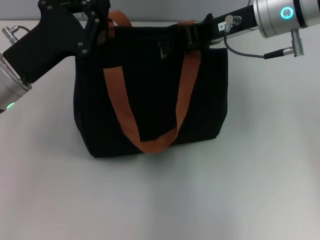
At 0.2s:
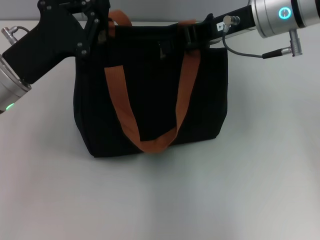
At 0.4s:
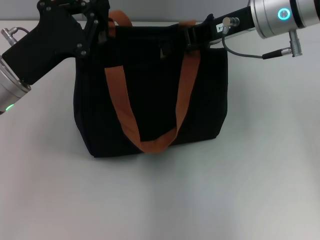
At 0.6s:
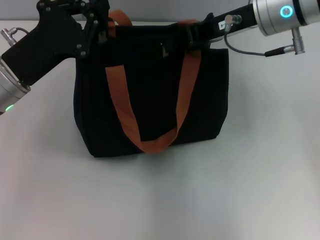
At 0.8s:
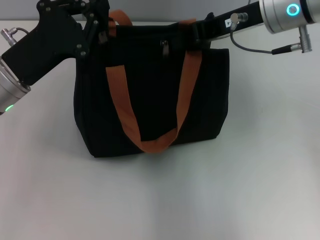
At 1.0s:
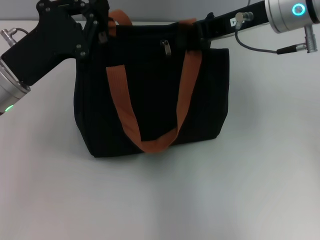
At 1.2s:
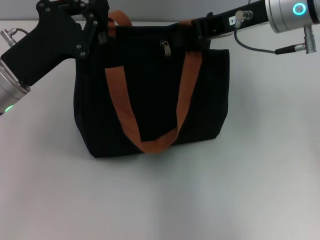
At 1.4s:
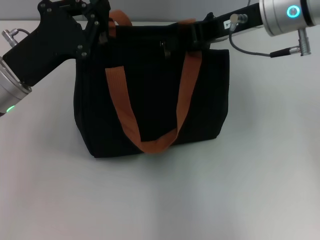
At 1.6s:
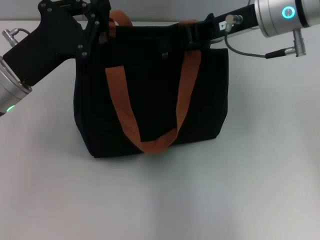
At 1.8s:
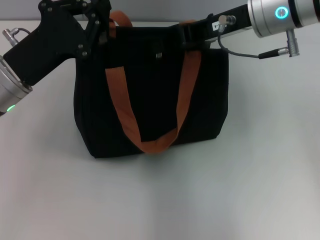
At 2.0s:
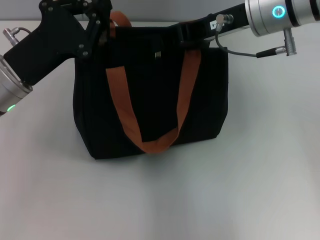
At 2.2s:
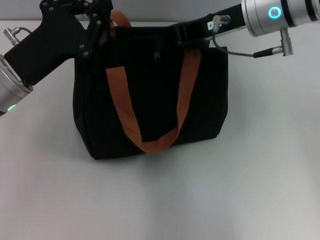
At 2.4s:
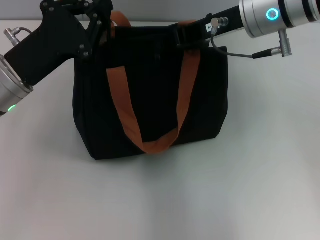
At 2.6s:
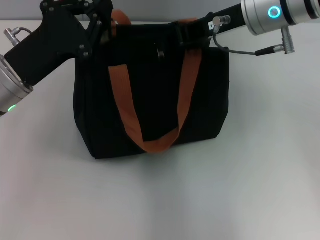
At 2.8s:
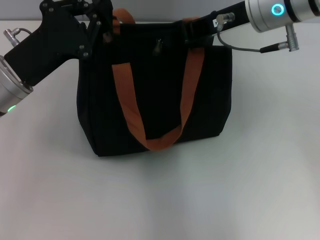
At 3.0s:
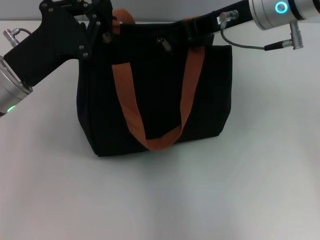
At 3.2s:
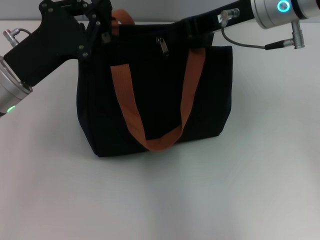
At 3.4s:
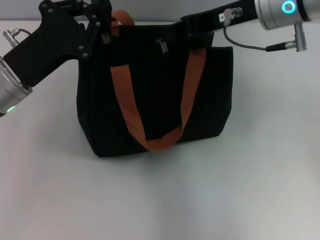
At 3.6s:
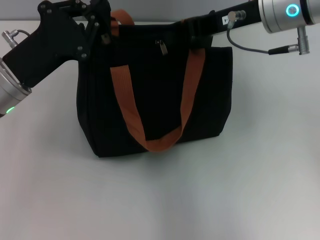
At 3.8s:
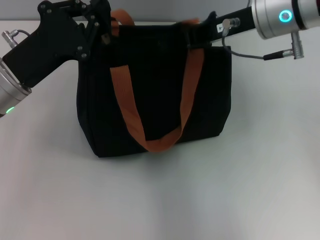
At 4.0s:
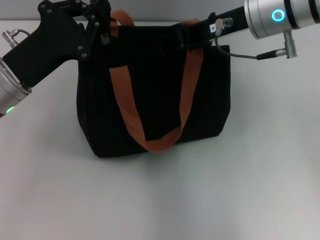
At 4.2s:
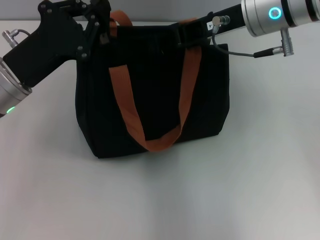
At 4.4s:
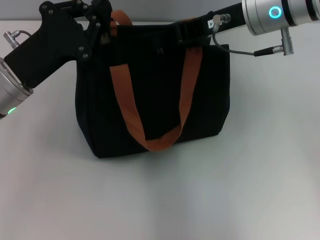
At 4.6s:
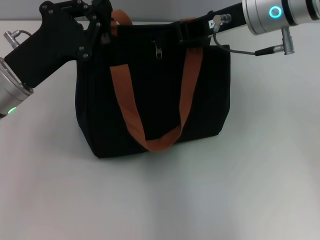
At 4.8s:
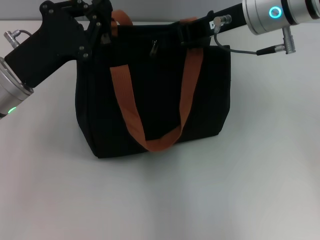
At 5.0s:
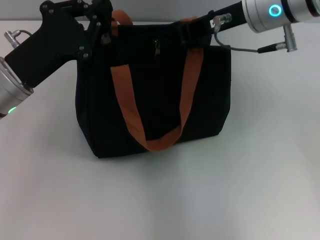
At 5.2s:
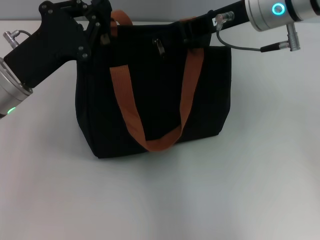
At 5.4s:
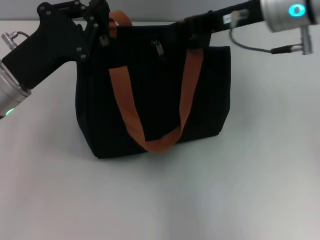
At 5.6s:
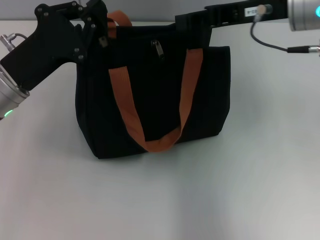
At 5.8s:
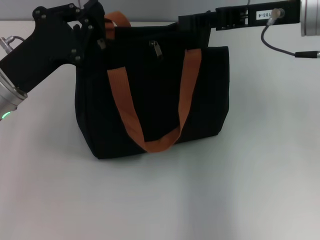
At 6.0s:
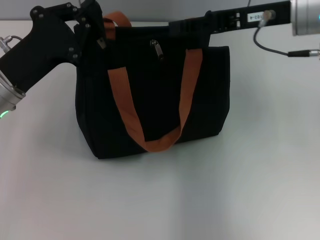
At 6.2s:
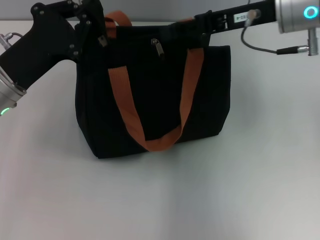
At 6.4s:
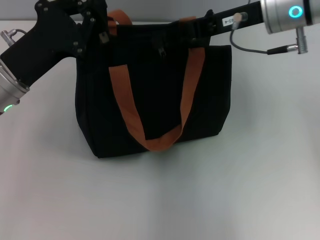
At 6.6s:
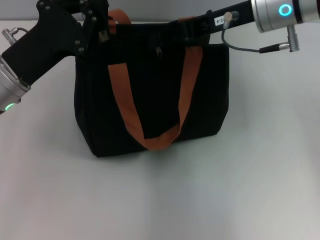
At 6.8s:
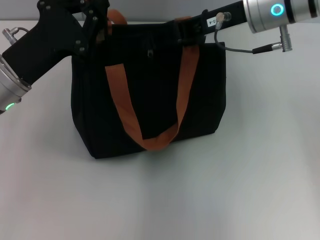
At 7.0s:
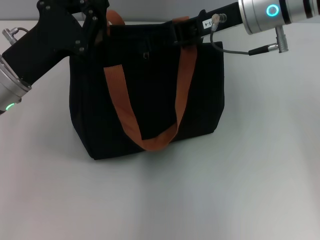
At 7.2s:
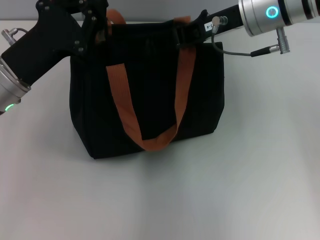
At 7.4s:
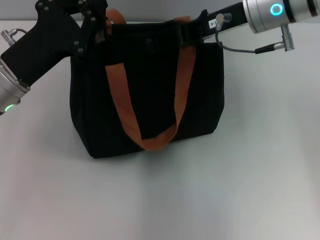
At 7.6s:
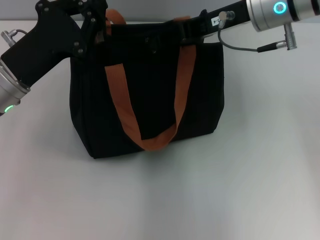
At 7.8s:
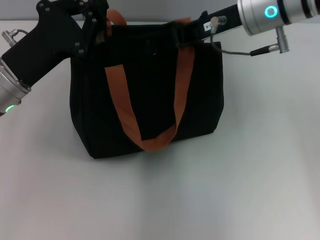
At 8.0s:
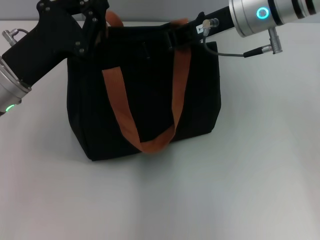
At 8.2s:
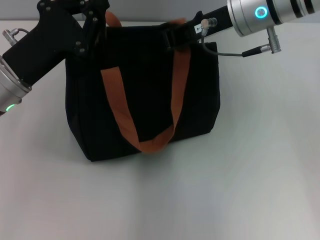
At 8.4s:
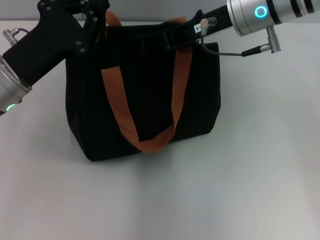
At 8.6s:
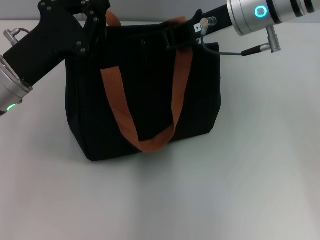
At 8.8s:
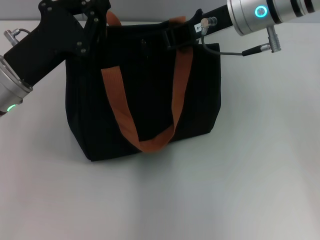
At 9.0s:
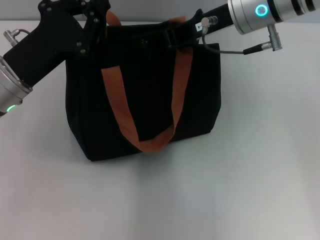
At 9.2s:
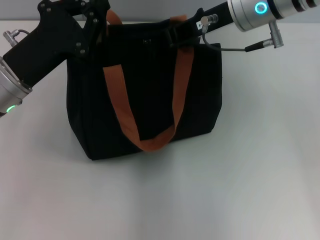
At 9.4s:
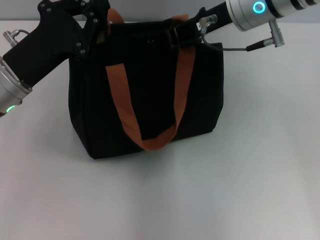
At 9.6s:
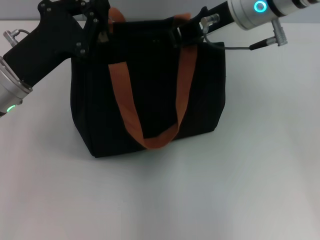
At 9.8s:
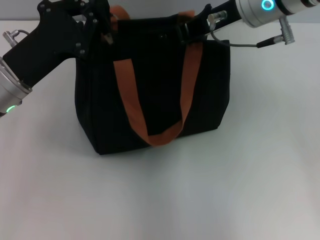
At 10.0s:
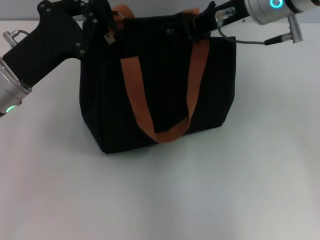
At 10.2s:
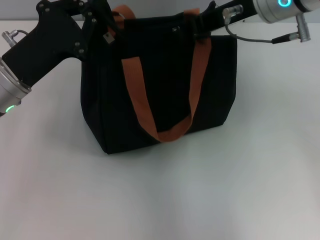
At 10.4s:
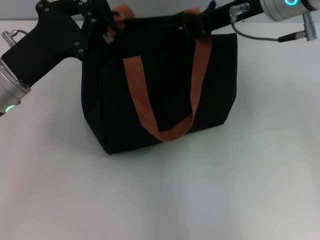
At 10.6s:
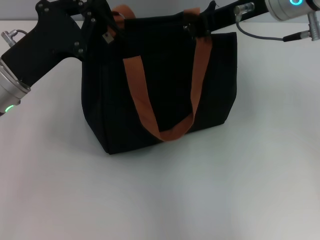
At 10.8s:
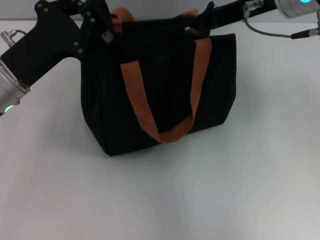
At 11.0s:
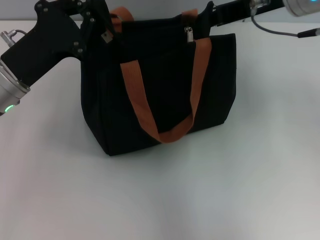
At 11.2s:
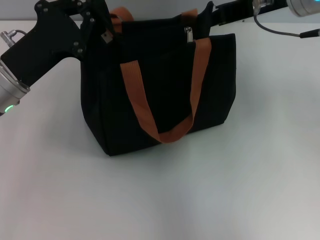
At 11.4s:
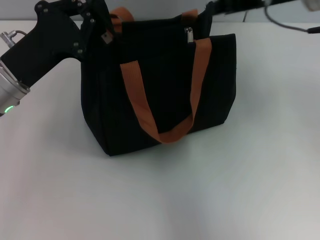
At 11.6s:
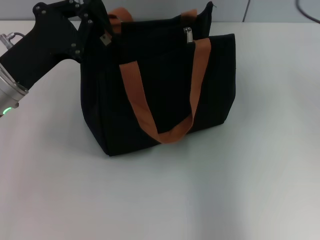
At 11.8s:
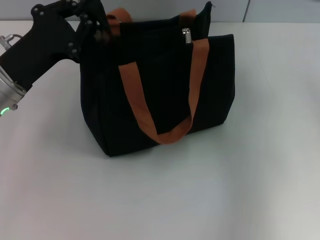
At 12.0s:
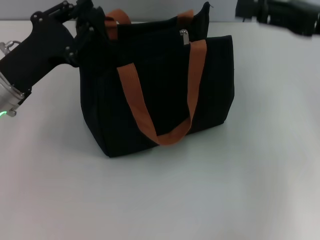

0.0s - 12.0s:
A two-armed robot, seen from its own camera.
Step, 0.0s - 11.4s: Pull up the zipper with your right hand.
0.0s - 4.4s: The grippers stay close to where they were, moving slightly.
4.4s - 6.0s: The right gripper moves some 5 cm.
6.0s - 7.6s: The grippers make only small movements.
7.6s - 9.0s: The right gripper closes its fingers.
9.0s - 10.4s: The grippers make only small movements.
10.4s - 12.0s: The right gripper shifts about 15 cm to the right, and opens its fingers.

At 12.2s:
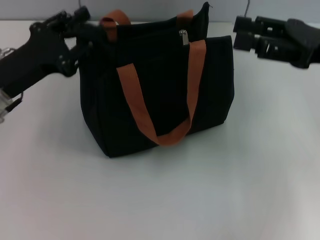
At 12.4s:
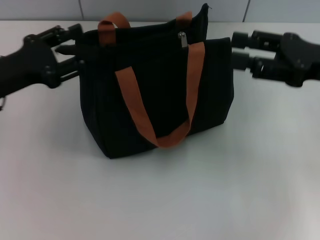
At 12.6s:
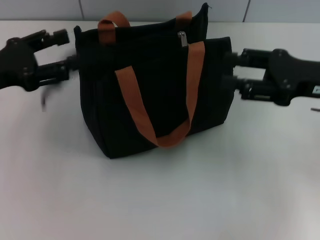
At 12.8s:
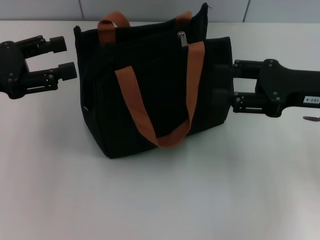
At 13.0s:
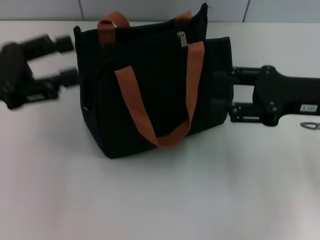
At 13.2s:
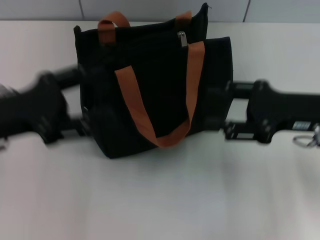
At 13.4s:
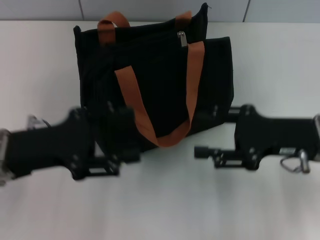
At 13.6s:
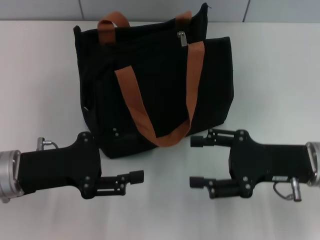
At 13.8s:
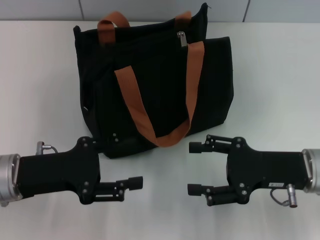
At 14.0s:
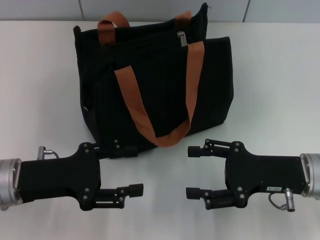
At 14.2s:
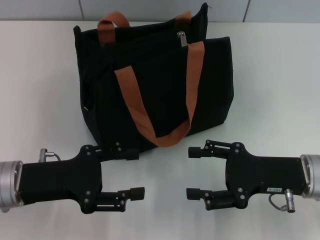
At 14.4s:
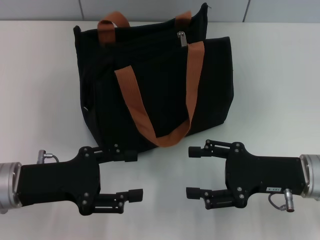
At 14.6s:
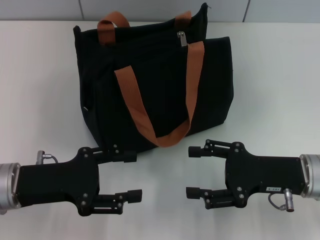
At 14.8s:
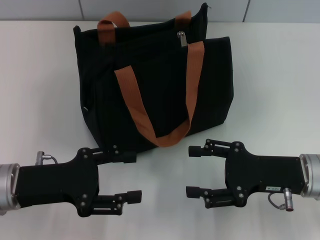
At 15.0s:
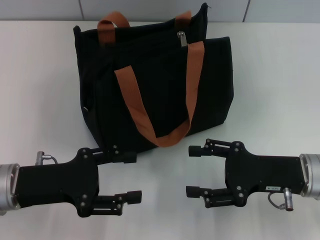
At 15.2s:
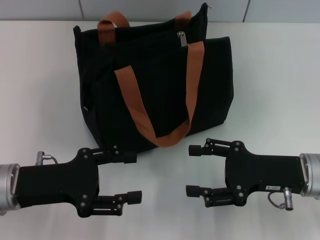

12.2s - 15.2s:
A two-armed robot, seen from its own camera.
12.2s - 13.8s: The left gripper travels backward by roughly 5 cm, and opens up; the right gripper heads downward and backward, covering roughly 15 cm.
13.8s - 15.2s: Both grippers stay about where they are.

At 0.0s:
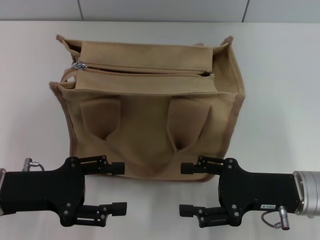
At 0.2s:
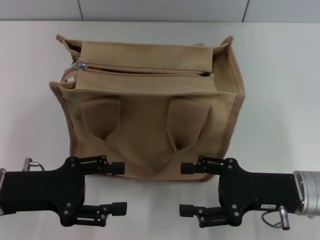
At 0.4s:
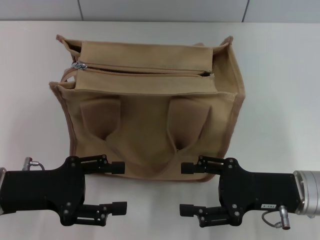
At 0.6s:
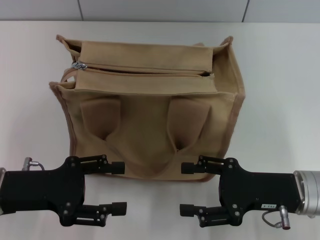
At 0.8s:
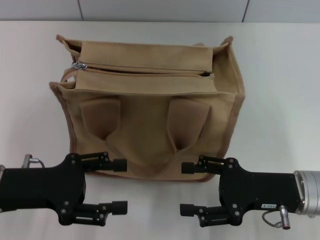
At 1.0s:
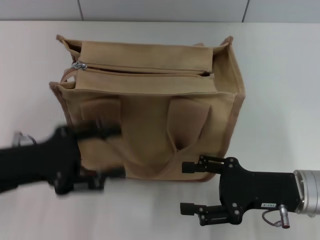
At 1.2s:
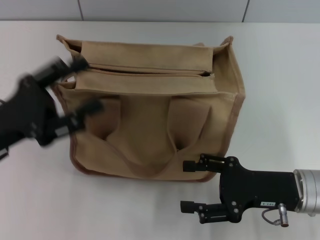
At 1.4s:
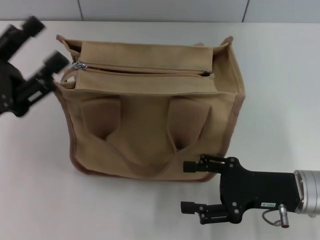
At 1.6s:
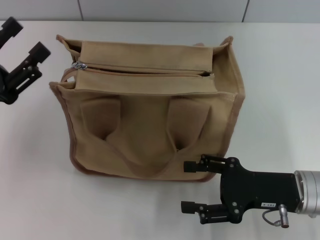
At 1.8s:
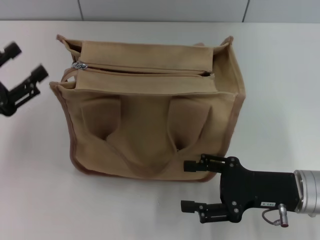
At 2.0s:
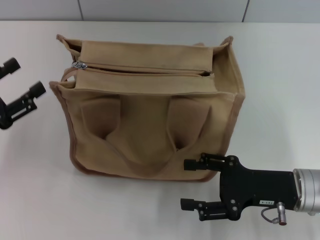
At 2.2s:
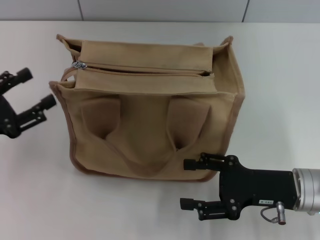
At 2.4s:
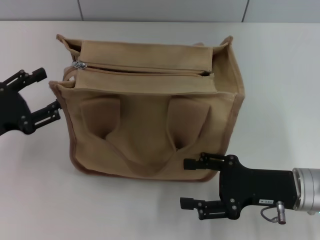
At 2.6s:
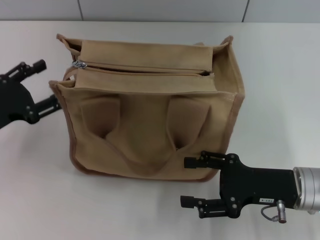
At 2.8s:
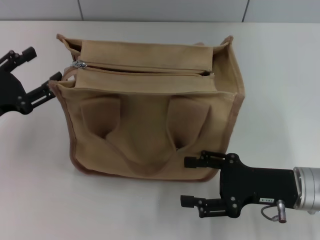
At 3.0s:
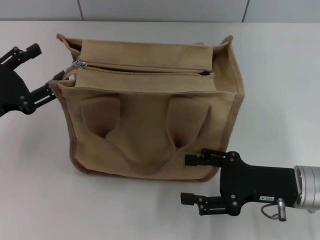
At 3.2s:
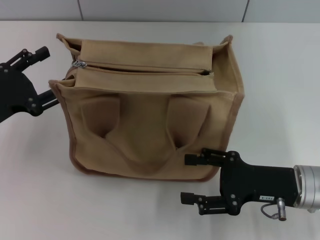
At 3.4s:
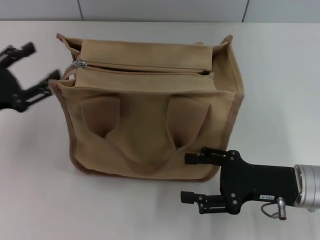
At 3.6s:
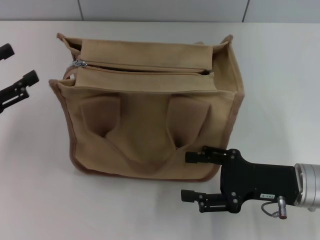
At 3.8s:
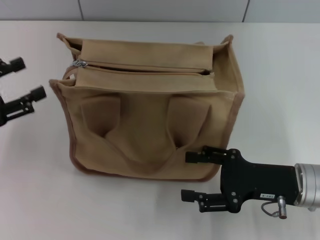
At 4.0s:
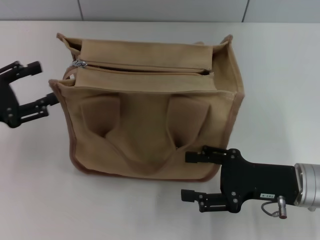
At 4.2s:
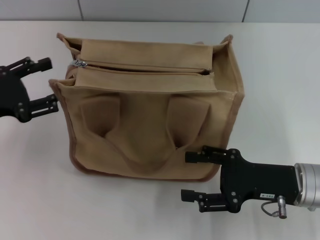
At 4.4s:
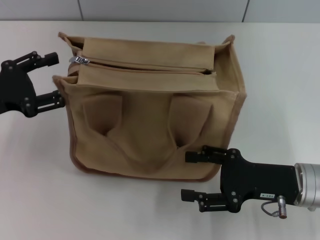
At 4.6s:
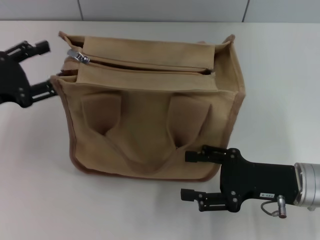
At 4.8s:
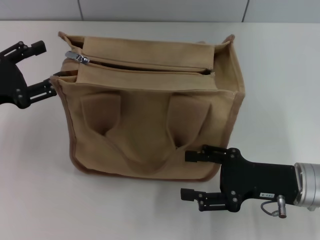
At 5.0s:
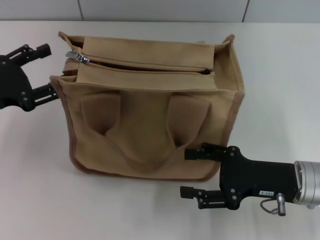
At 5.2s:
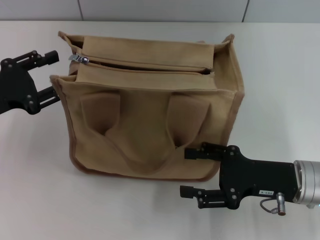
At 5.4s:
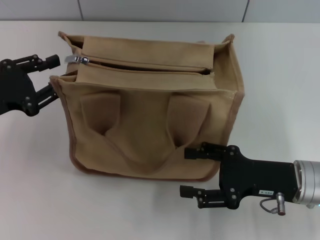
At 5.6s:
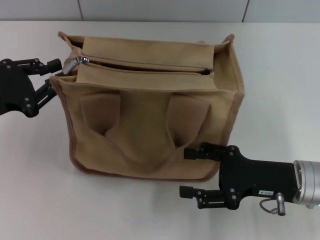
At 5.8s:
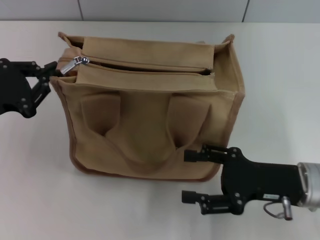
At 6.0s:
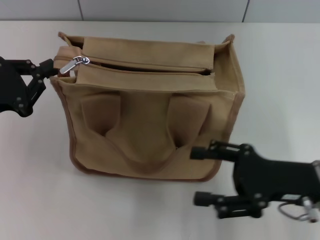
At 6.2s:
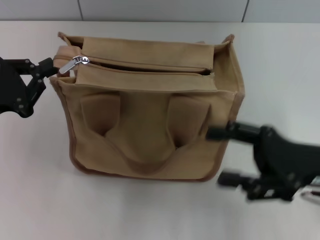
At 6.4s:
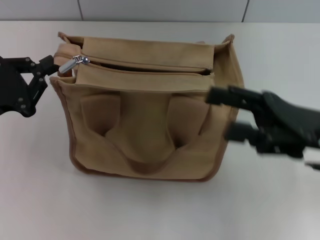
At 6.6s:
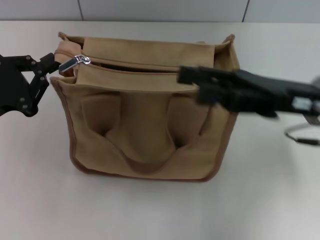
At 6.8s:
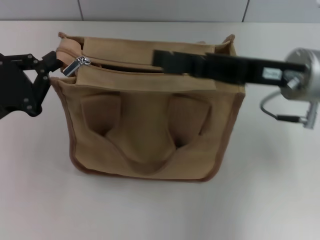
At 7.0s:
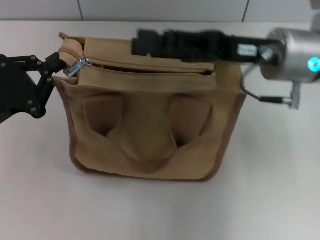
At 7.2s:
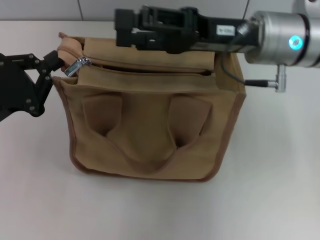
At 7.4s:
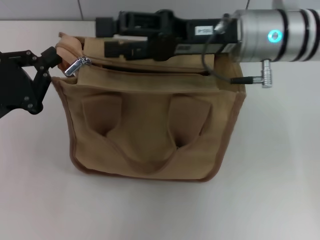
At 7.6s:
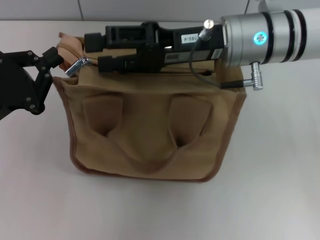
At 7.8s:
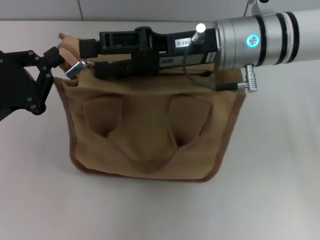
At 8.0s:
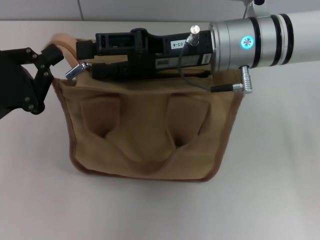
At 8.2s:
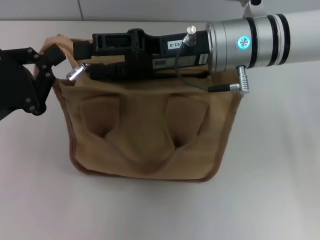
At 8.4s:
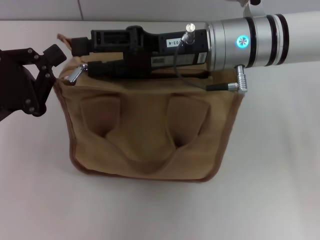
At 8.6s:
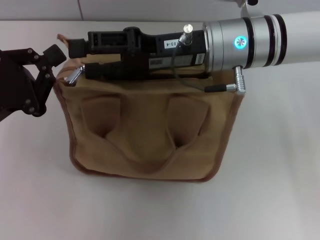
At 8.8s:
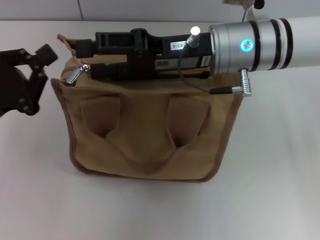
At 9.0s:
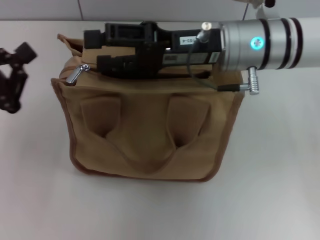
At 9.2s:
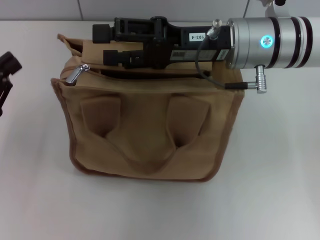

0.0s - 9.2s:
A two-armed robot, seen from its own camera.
3.0s - 4.6s: The grippers move only a little.
4.6s - 6.2s: The right gripper is displaced upward by roughly 5 cm. The left gripper closes up.
6.2s - 7.6s: The right gripper moves forward, to the left and upward, approximately 20 cm.
7.6s - 9.2s: The left gripper is displaced to the left by approximately 5 cm.
